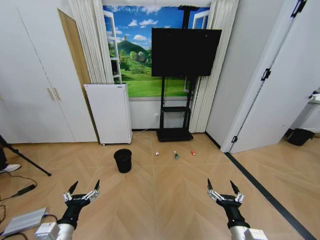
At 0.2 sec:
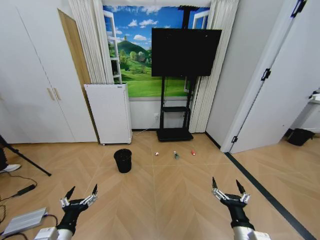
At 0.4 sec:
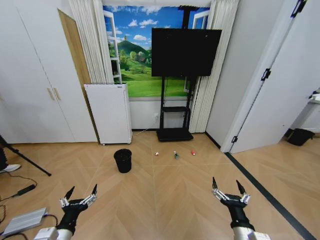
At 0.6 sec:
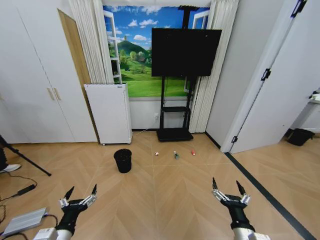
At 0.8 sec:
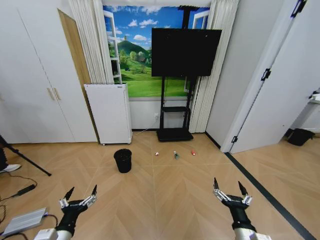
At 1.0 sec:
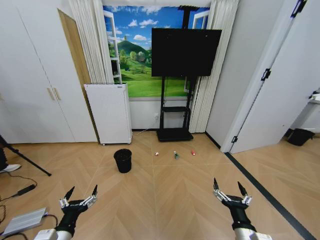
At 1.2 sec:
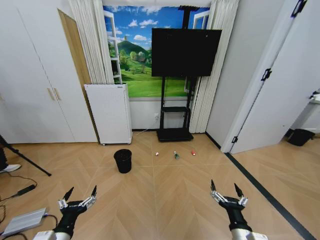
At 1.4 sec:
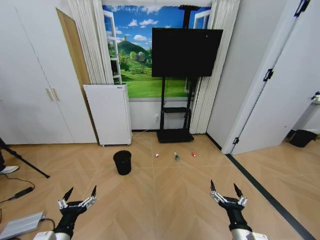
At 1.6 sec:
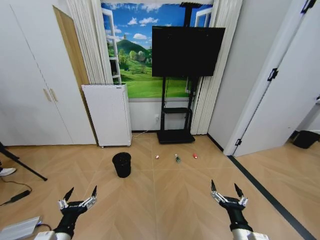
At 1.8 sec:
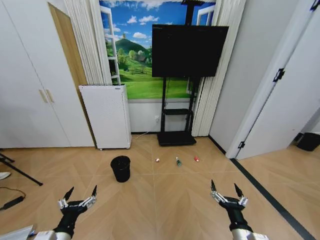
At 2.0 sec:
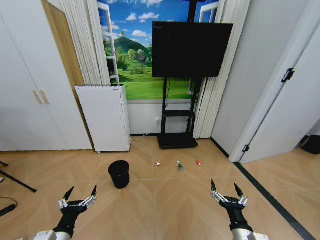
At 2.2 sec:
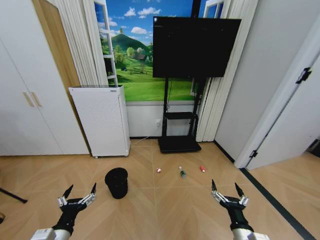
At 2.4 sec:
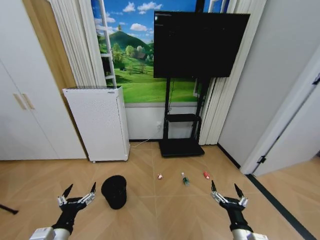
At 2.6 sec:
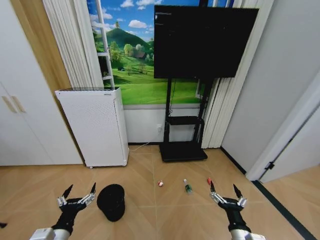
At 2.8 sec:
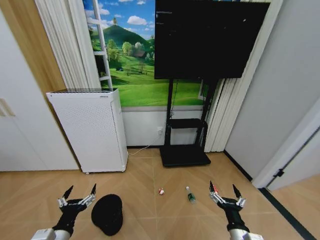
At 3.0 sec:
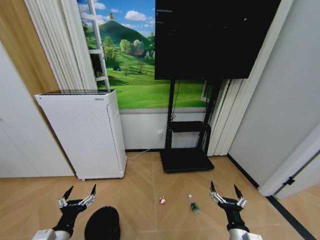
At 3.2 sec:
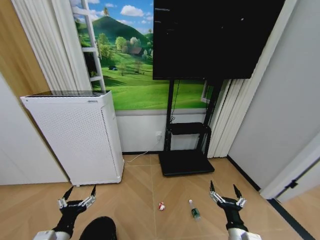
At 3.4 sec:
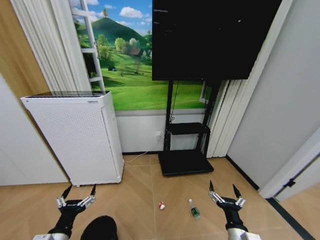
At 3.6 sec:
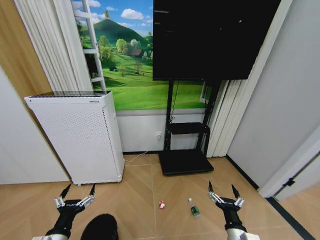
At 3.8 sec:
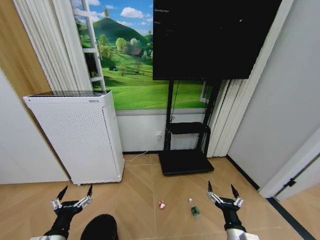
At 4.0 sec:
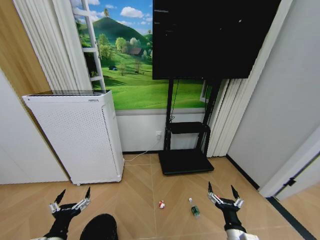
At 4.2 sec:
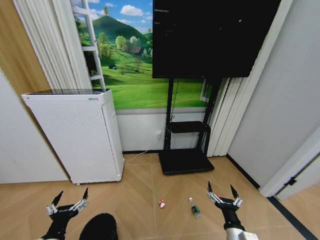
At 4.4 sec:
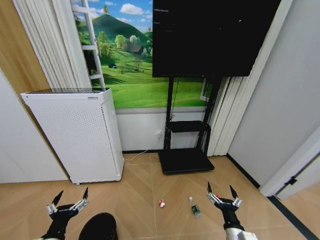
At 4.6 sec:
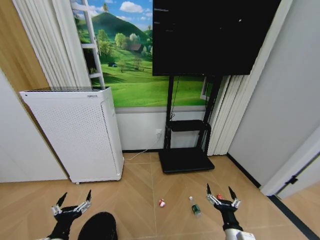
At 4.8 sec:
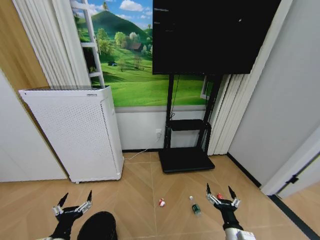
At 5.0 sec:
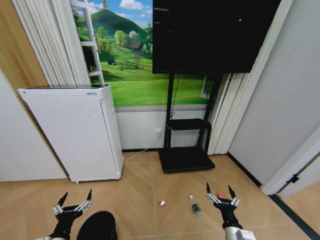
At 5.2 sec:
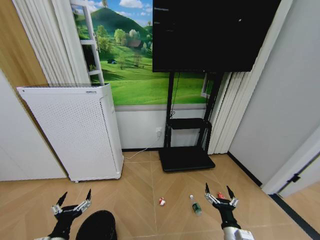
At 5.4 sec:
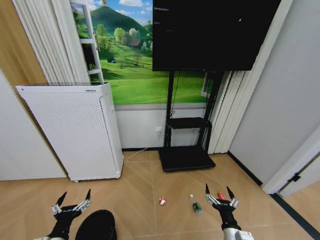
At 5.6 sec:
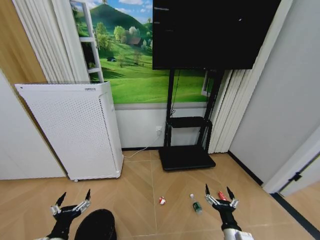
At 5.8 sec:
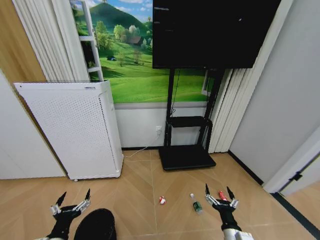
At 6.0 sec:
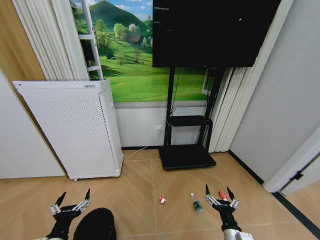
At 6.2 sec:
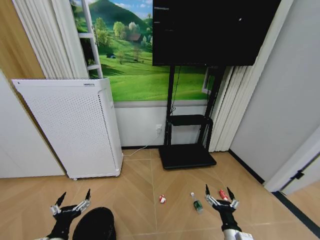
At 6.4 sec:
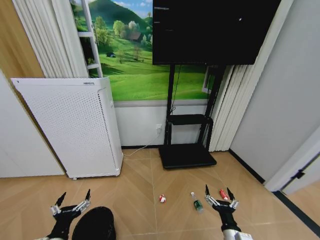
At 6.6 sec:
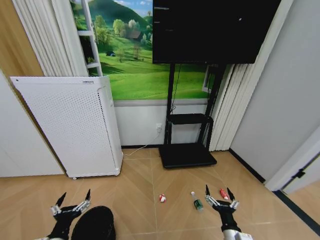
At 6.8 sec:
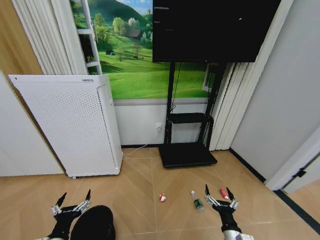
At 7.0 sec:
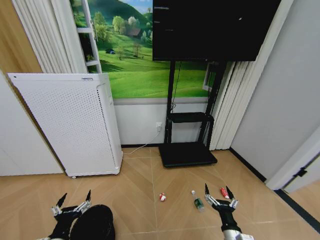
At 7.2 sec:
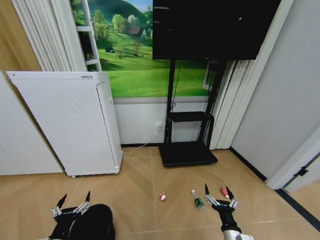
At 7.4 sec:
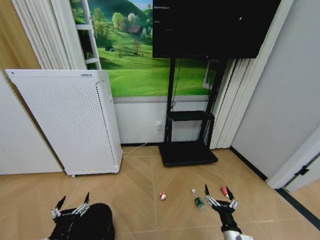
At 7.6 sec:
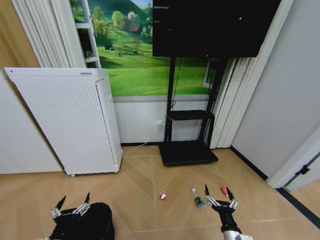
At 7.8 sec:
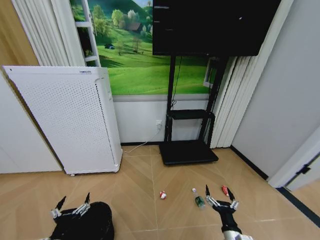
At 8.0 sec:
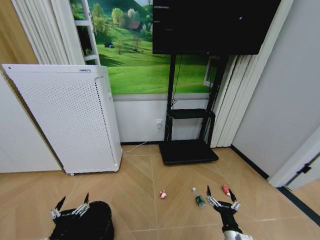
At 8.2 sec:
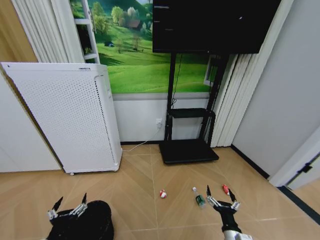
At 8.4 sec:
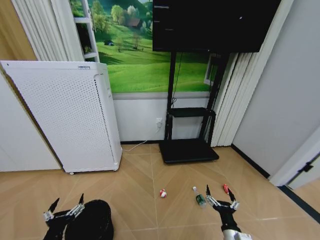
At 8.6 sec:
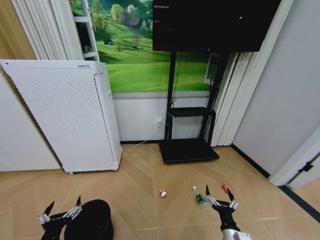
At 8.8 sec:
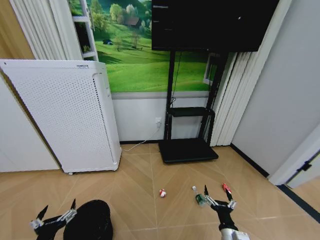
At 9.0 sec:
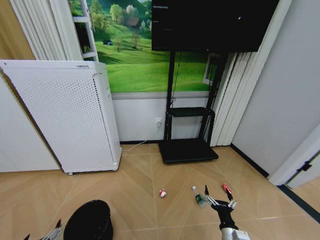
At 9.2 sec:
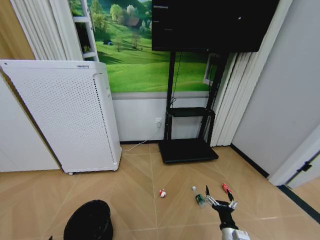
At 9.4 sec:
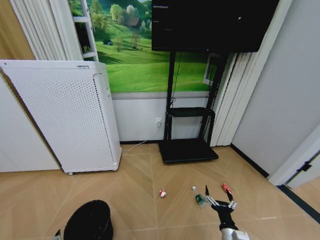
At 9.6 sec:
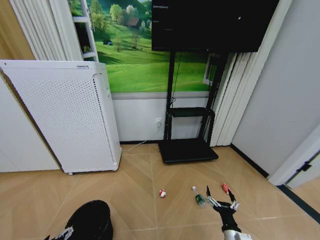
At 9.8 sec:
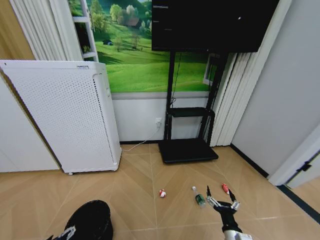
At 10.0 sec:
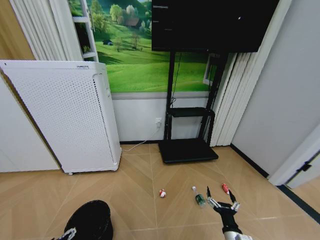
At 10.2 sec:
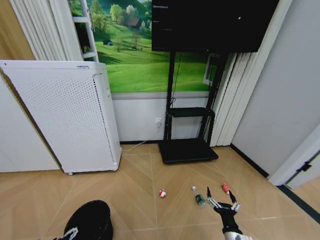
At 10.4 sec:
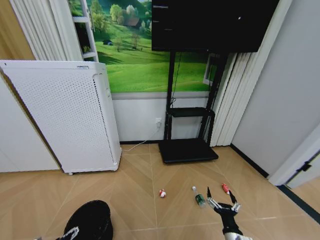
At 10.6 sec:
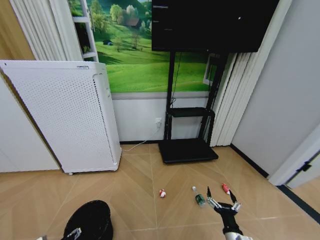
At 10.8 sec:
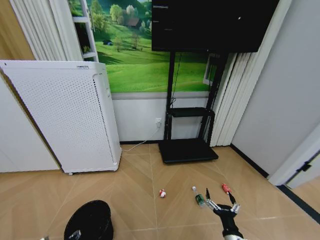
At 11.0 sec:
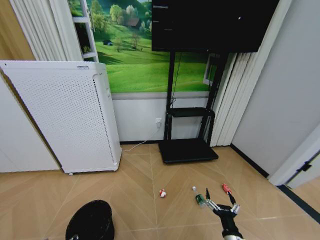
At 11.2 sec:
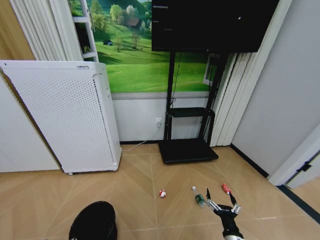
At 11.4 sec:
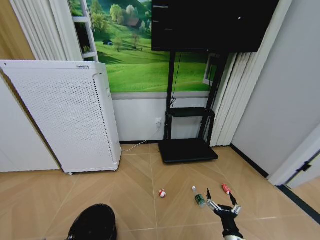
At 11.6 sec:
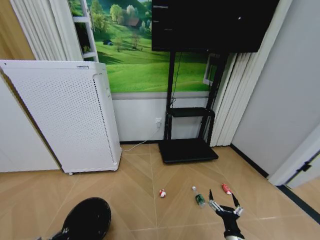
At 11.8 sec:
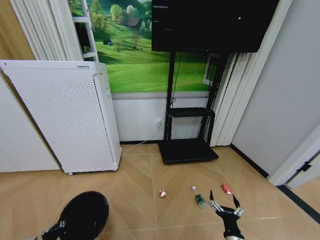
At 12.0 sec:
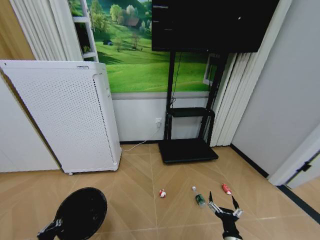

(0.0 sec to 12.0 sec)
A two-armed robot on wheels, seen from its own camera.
Task of the whole recording: Pick up the trash bin and place the garbage on the floor into it.
3.0 sec - 7.6 sec: There are only small adjustments of the grippers.
7.6 sec - 9.0 sec: The left gripper changes place by some 5 cm.
10.4 sec - 12.0 sec: The left gripper closes up.

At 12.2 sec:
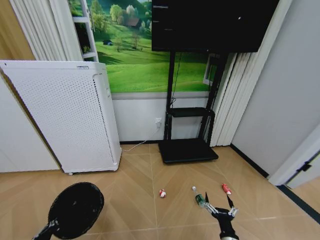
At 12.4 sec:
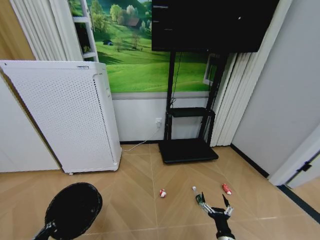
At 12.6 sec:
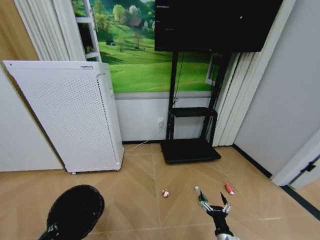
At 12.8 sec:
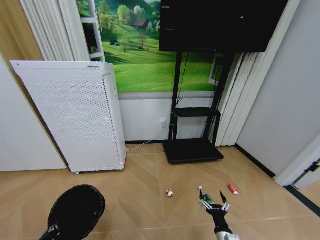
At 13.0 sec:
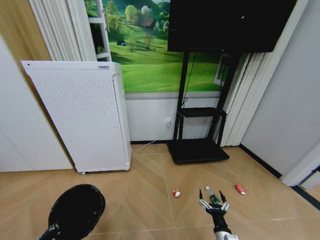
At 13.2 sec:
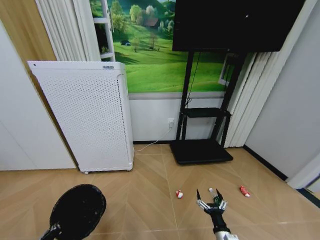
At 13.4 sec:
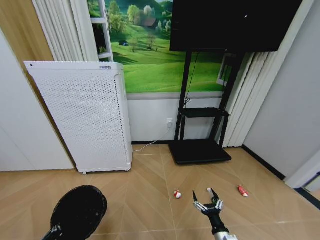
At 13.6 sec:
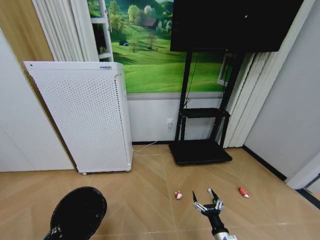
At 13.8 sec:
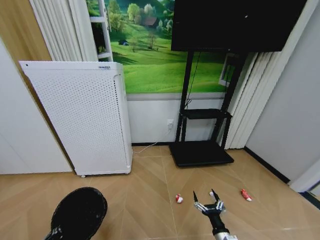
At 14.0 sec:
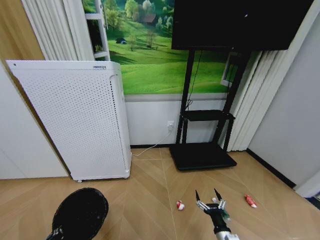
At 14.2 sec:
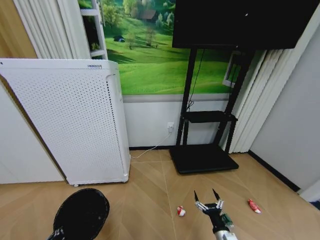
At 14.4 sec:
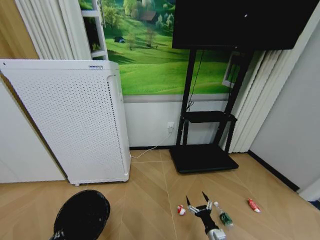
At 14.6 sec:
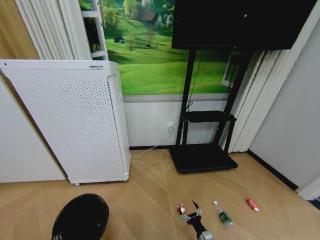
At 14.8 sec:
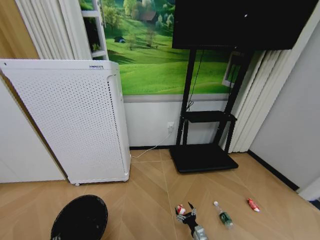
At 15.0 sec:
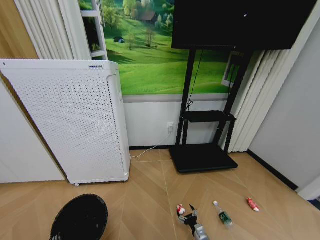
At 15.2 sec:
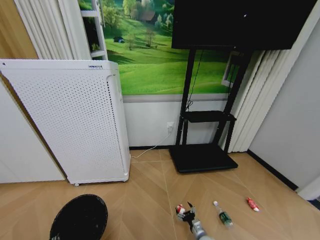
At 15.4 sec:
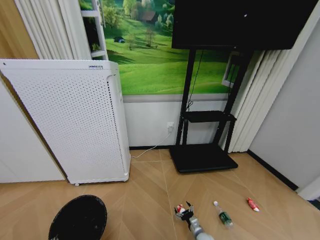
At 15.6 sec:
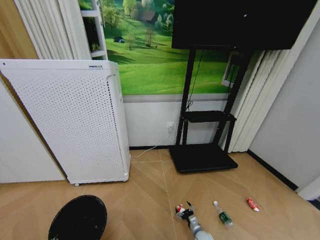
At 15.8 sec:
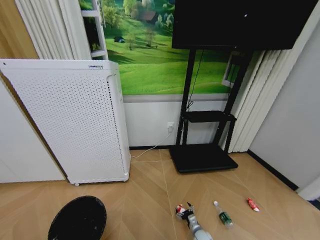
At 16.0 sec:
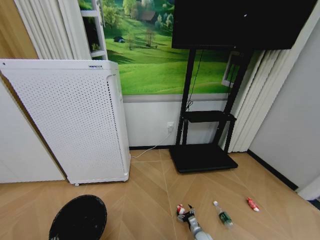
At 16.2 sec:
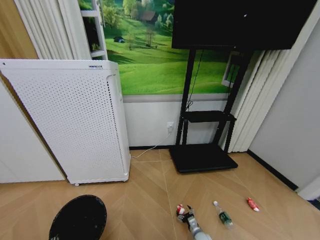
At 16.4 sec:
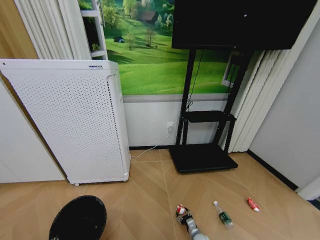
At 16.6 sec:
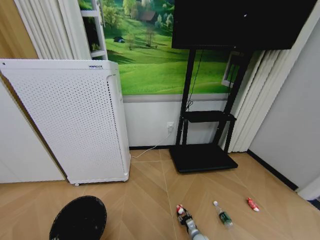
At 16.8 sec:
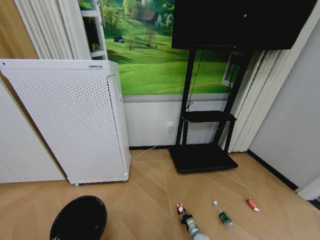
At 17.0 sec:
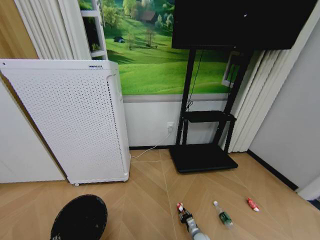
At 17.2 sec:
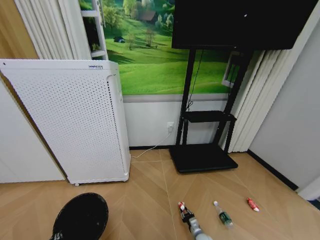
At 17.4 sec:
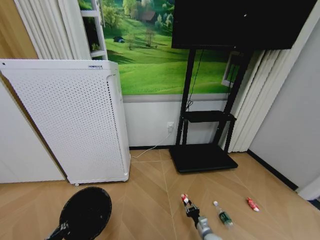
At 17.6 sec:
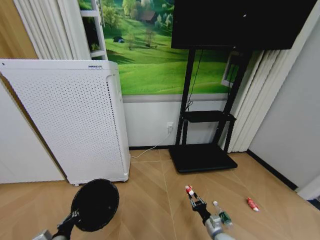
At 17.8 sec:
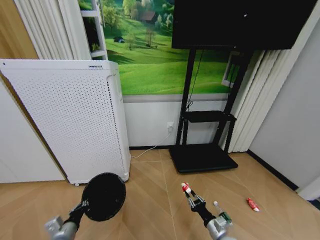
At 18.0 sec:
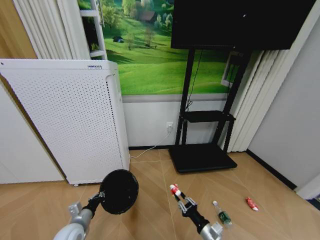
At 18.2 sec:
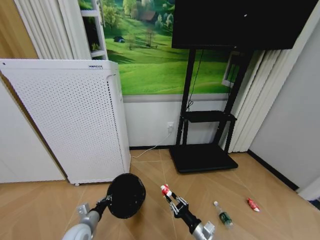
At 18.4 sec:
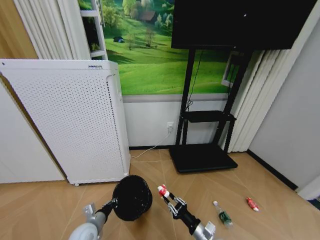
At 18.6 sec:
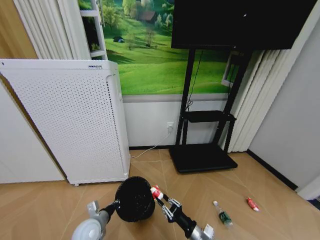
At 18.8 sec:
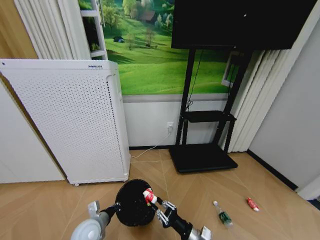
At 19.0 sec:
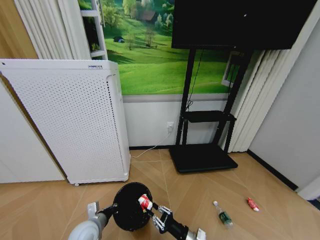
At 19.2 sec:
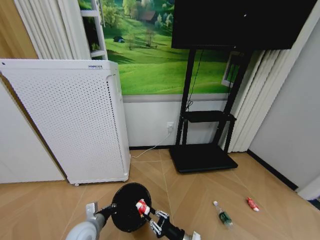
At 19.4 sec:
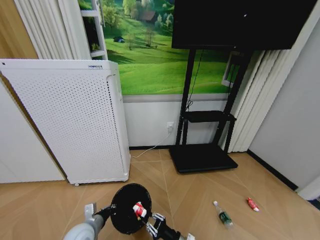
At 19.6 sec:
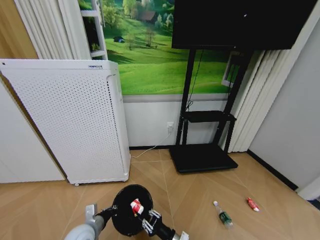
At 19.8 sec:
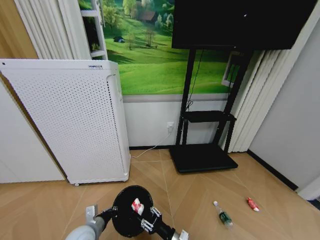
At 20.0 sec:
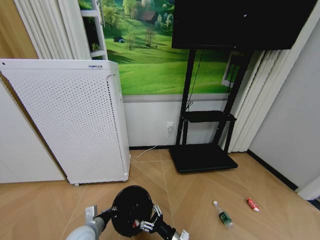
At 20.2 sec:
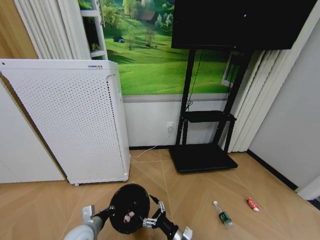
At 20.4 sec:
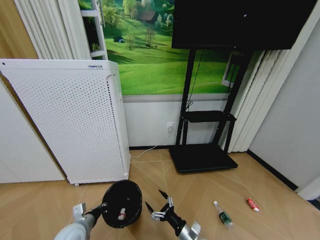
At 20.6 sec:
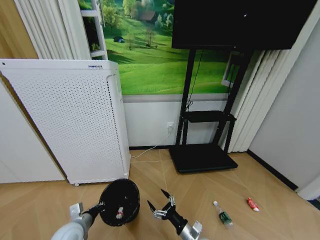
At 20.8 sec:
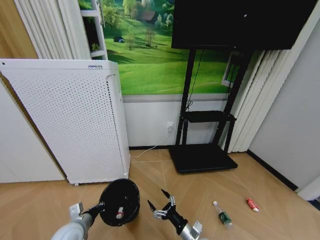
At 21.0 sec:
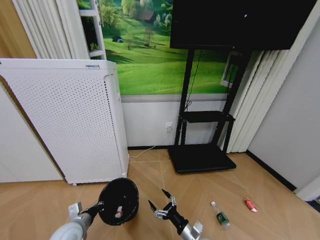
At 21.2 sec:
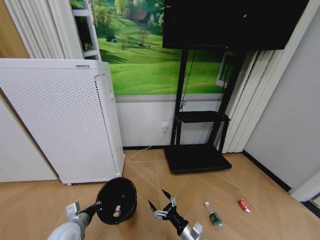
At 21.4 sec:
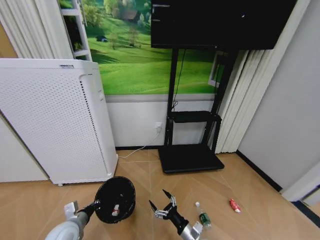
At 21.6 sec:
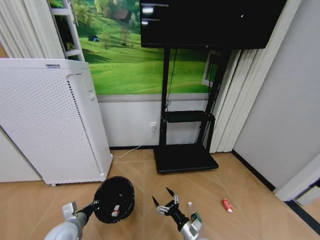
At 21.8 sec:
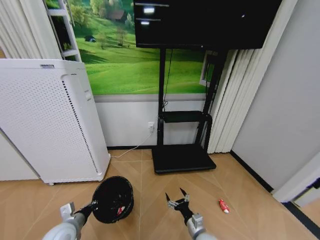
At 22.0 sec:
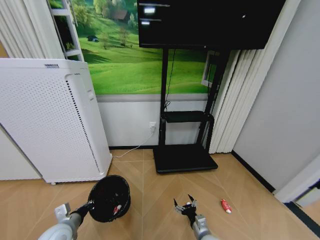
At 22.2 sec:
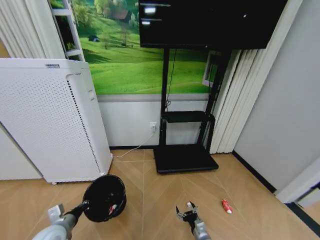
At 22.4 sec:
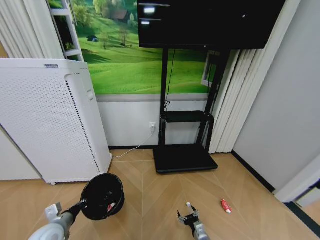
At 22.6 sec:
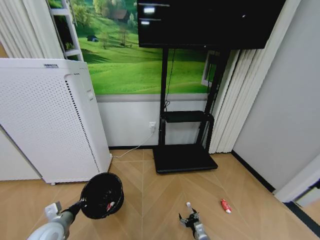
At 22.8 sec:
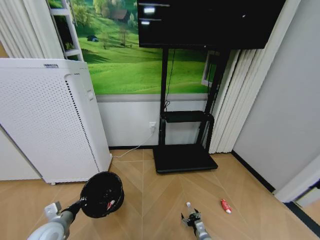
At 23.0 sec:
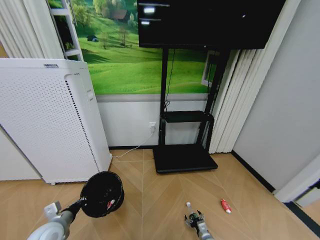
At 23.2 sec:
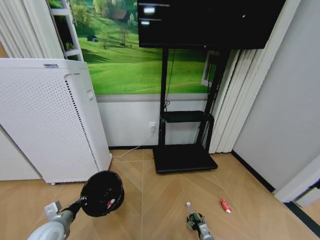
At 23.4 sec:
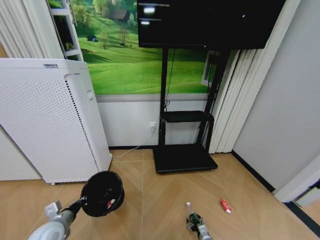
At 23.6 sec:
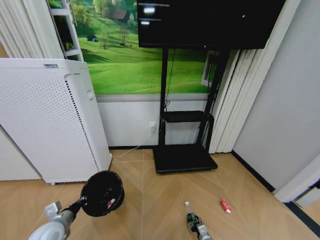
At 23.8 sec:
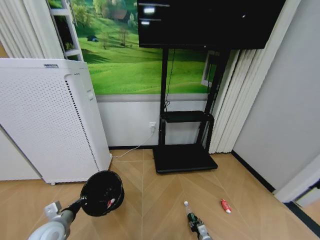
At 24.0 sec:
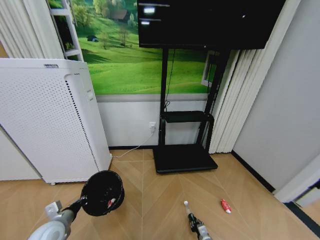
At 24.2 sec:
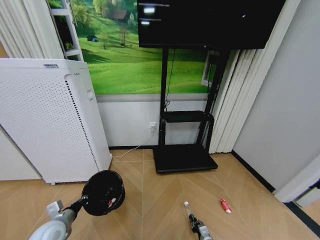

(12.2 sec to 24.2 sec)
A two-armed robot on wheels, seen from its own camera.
Task of the whole recording: Pick up the trash bin and place the garbage on the floor into it.
13.8 sec - 15.2 sec: The right gripper travels downward and forward by some 20 cm.
16.6 sec - 18.2 sec: The right gripper travels upward by about 25 cm, while the left gripper is displaced forward by roughly 20 cm.
18.2 sec - 19.8 sec: The left gripper changes place by some 5 cm, while the right gripper shifts approximately 10 cm to the left.
19.8 sec - 21.2 sec: The left gripper travels to the left by roughly 5 cm; the right gripper opens.
21.2 sec - 22.6 sec: The left gripper goes approximately 5 cm to the left, while the right gripper shifts roughly 15 cm downward and to the right.
22.6 sec - 24.2 sec: The right gripper closes up.
